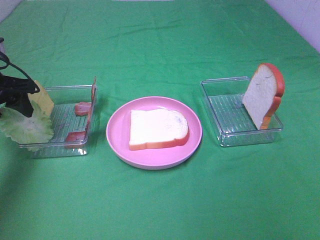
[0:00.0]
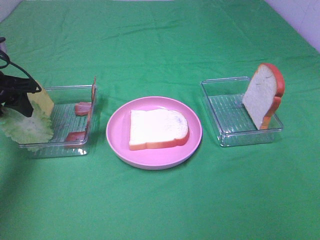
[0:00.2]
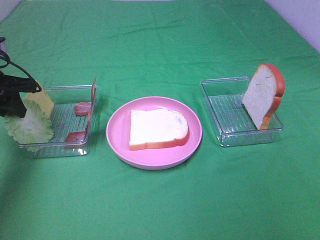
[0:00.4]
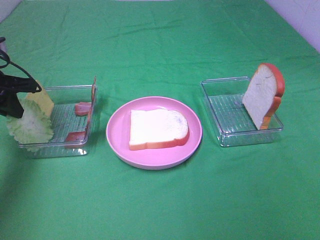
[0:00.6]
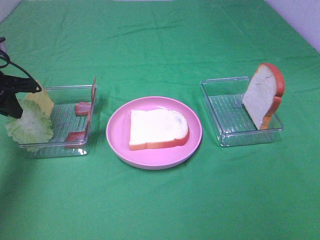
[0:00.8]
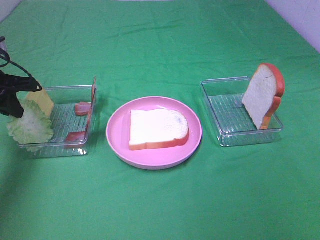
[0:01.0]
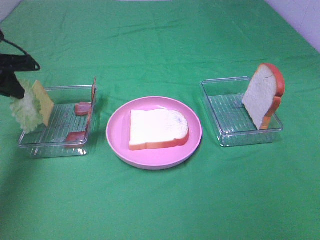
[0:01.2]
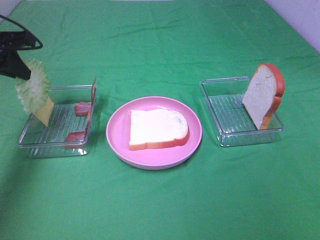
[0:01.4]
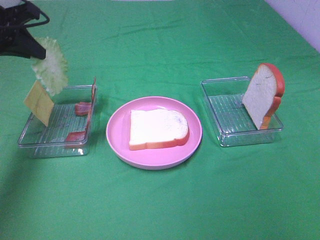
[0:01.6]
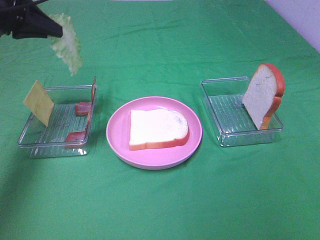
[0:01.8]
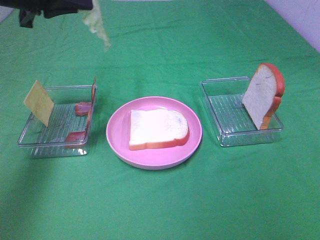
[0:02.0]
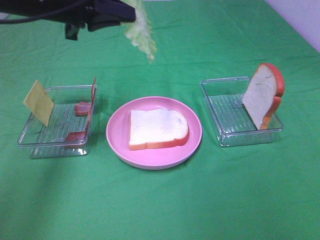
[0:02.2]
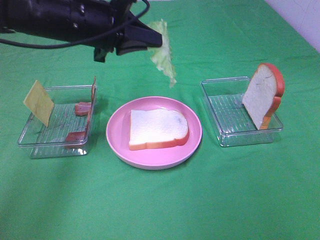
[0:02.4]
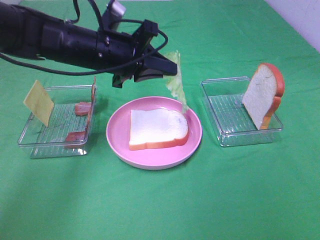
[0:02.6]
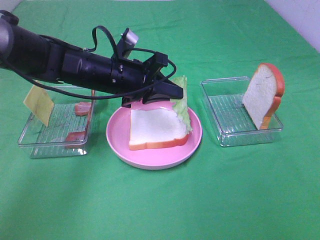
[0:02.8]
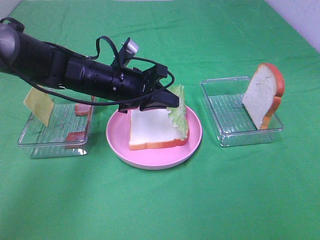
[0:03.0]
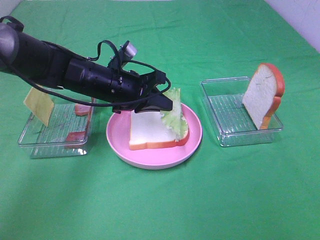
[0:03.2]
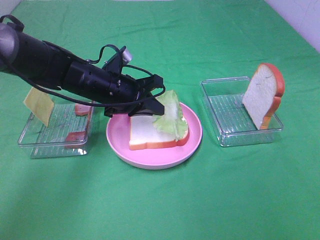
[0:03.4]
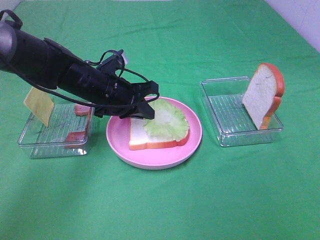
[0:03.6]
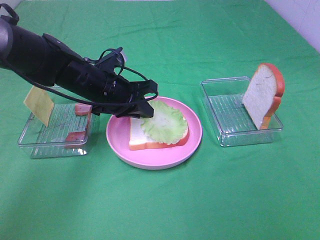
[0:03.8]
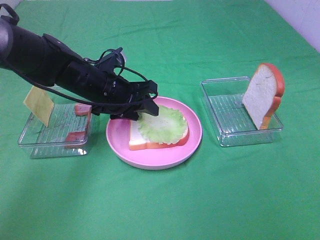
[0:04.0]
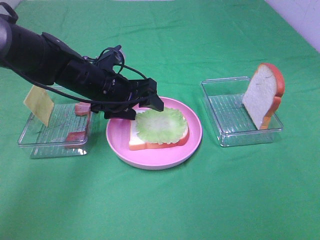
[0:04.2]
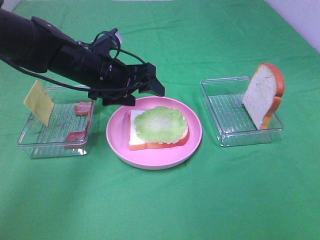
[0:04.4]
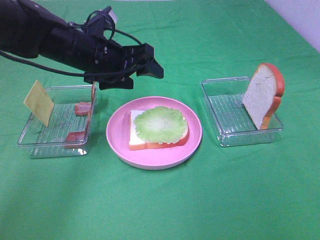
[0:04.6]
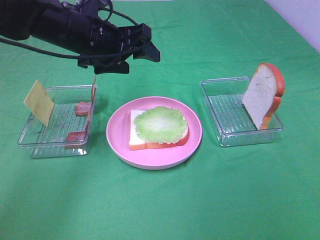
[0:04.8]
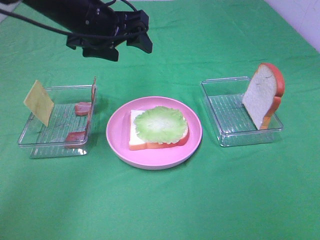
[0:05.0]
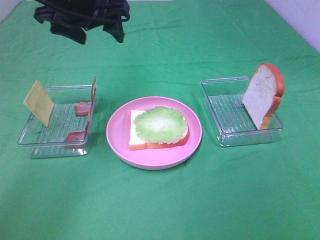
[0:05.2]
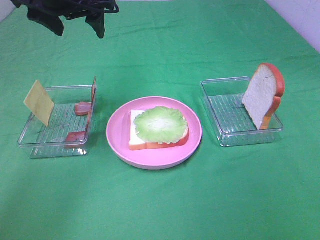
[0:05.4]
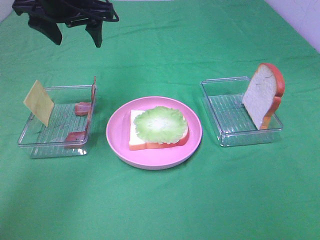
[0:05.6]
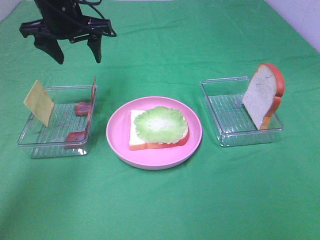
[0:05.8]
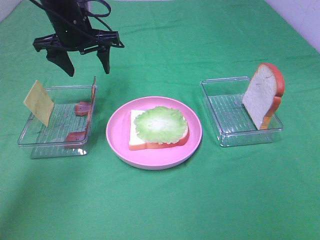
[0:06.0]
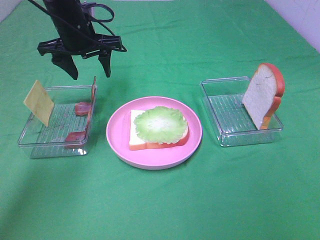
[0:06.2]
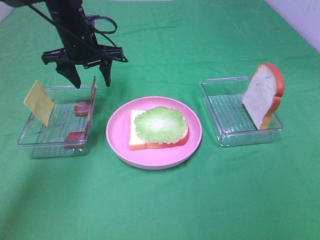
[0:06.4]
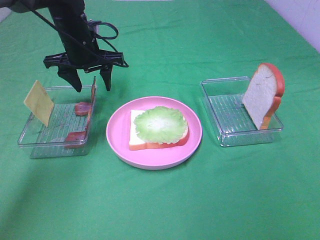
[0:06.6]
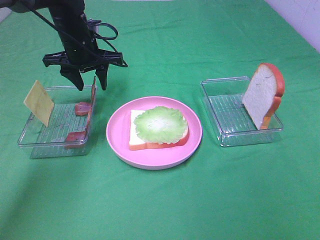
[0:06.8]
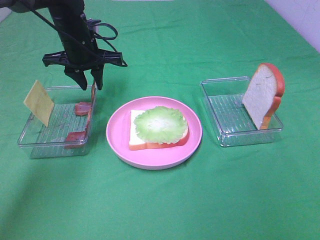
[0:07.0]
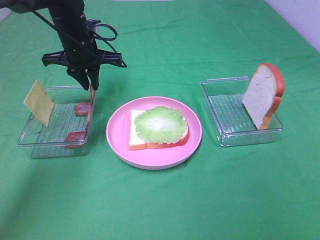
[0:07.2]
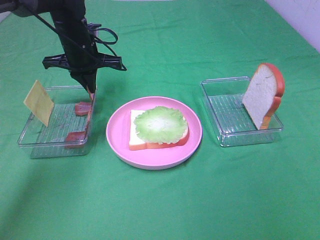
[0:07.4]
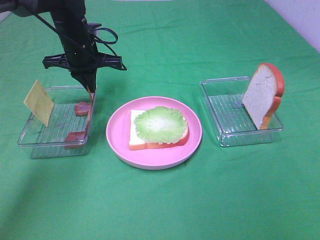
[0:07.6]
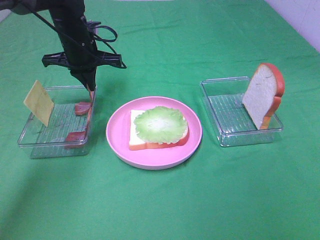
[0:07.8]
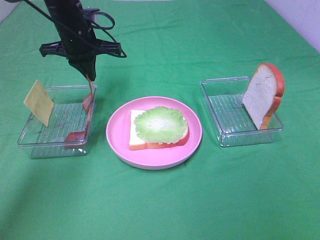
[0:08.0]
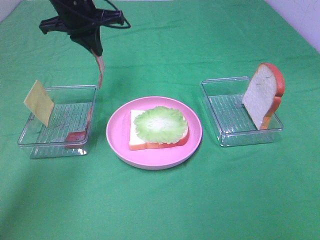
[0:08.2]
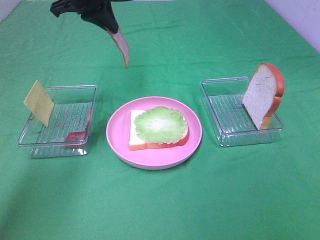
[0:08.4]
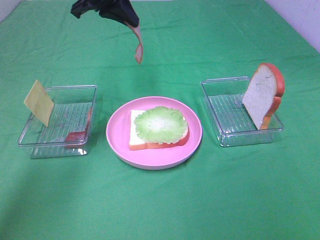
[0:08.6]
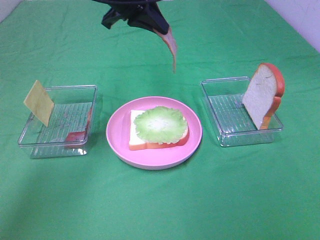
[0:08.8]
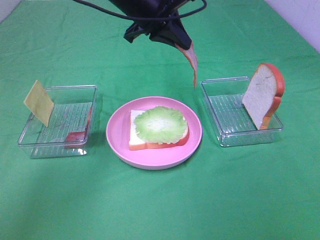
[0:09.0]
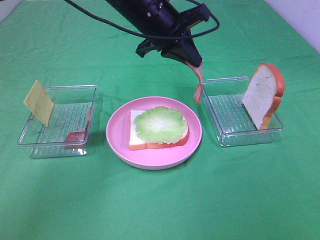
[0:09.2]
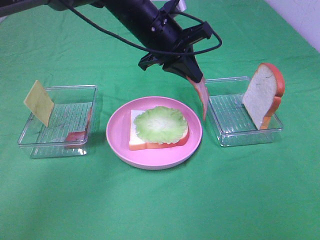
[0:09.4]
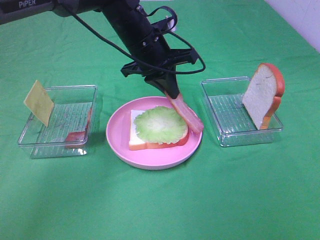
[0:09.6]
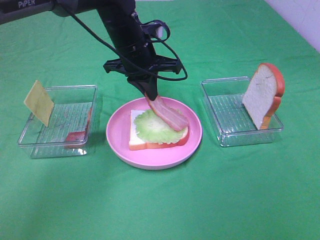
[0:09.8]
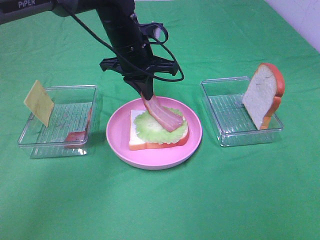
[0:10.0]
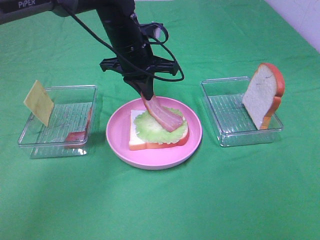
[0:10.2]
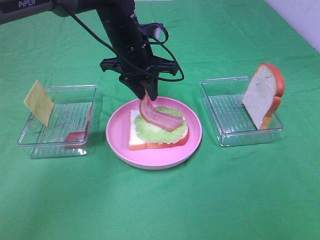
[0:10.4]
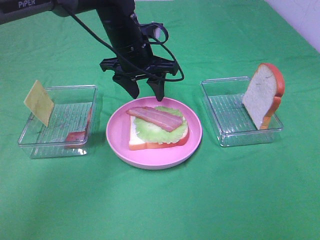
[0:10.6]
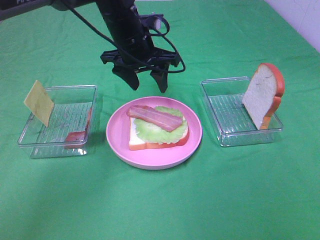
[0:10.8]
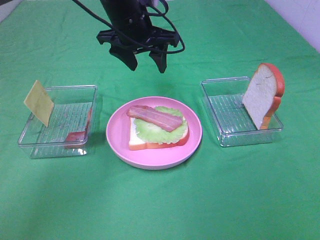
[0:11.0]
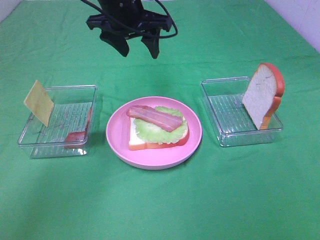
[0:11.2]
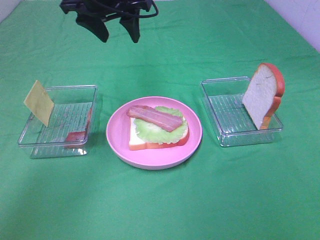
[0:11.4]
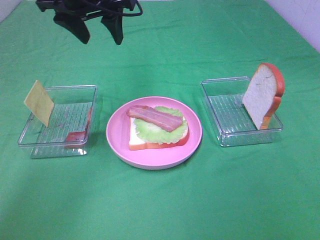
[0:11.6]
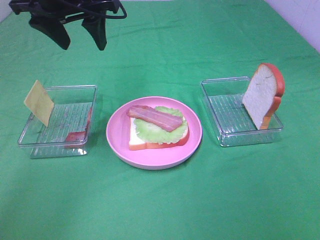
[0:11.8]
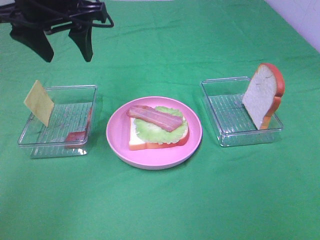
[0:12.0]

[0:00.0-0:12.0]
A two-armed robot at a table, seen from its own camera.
Task of the whole recording: Make sandwiches.
Step, 0:01.0 to 0:04.2: Left hand:place the lettuce slice on the bread slice.
Step, 0:04.4 to 0:07.6: Left hand:grab the bacon.
Step, 0:07.8 to 0:10.6: Left hand:place bacon on lettuce slice.
0:00.0 to 0:01.6: The left gripper moves upward, roughly 10 cm, and closes.
0:01.6 to 0:03.0: The left gripper shifts about 25 cm to the right and downward.
0:03.0 to 0:04.4: The left gripper opens up.
0:04.4 to 0:06.0: The left gripper goes roughly 10 cm forward and upward.
0:06.0 to 0:07.6: The left gripper moves downward, about 5 cm, and closes.
0:07.6 to 0:09.0: The left gripper heads to the right and upward, covering about 15 cm.
0:09.0 to 0:10.4: The left gripper heads downward, covering some 5 cm, and opens.
0:10.4 to 0:12.0: The left gripper heads upward, to the left and backward, covering about 20 cm, and opens.

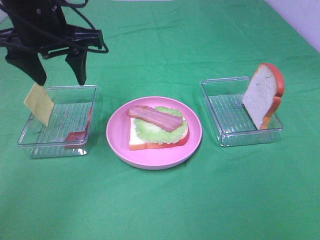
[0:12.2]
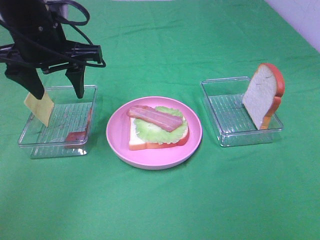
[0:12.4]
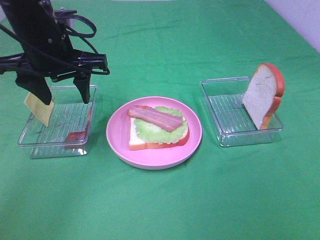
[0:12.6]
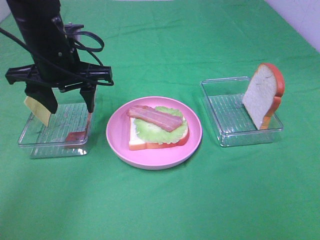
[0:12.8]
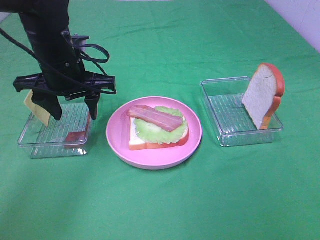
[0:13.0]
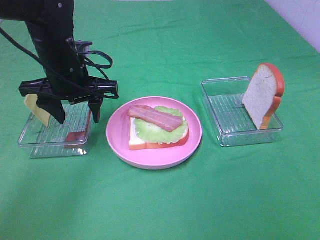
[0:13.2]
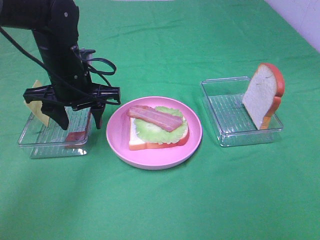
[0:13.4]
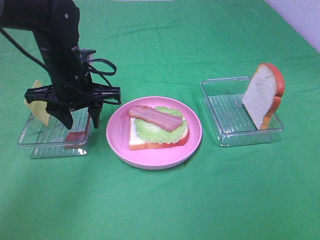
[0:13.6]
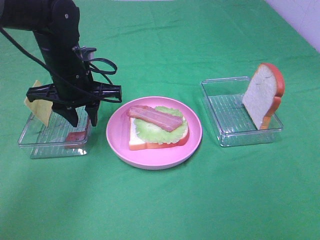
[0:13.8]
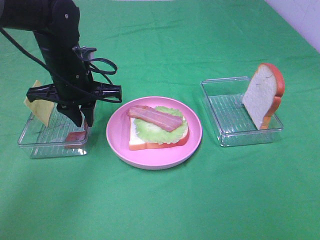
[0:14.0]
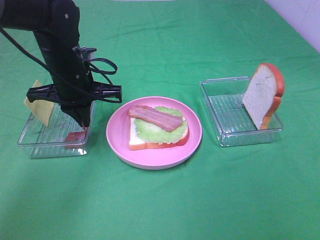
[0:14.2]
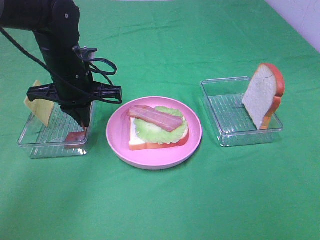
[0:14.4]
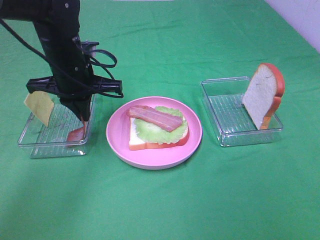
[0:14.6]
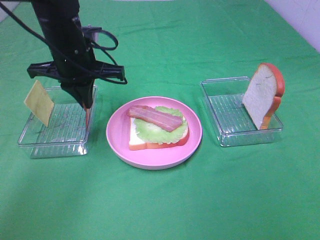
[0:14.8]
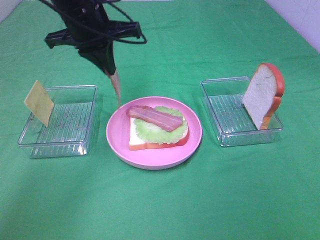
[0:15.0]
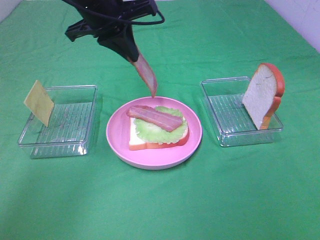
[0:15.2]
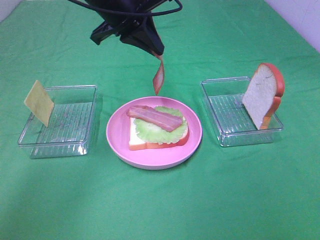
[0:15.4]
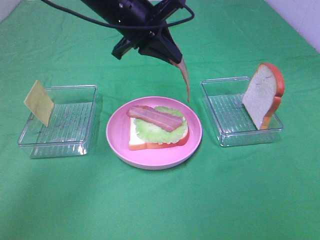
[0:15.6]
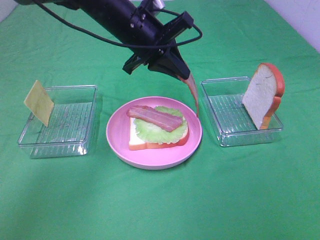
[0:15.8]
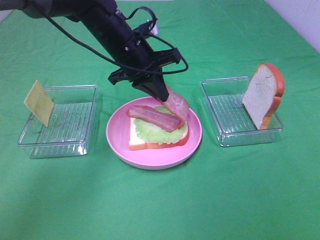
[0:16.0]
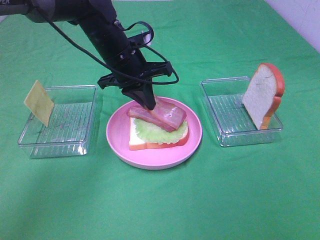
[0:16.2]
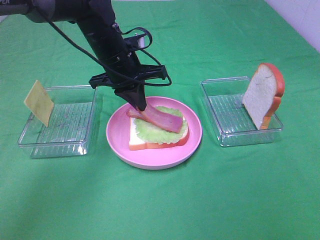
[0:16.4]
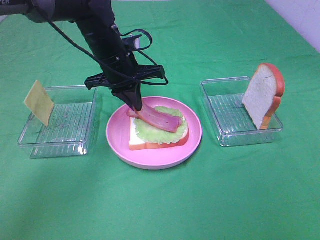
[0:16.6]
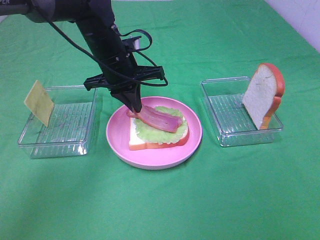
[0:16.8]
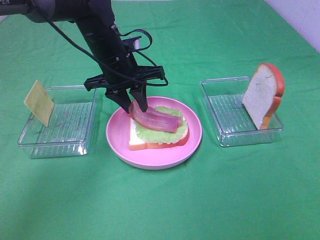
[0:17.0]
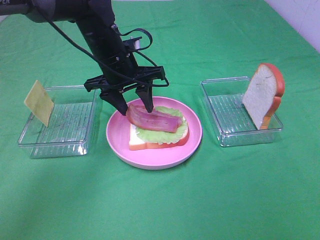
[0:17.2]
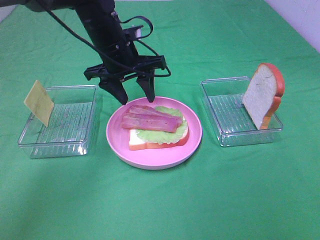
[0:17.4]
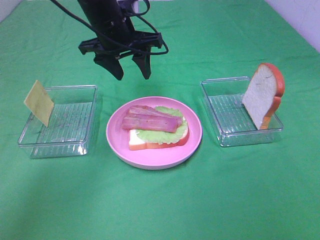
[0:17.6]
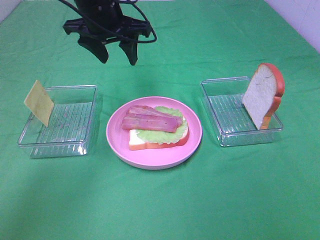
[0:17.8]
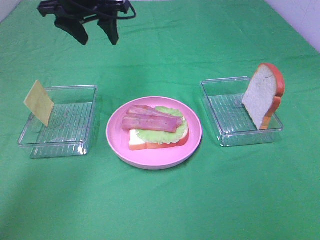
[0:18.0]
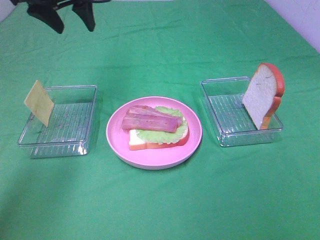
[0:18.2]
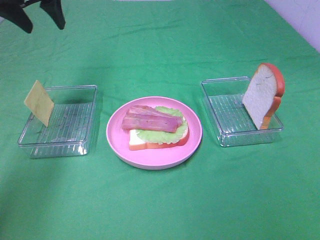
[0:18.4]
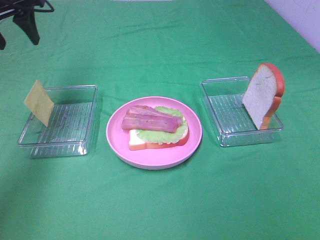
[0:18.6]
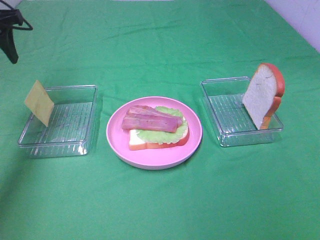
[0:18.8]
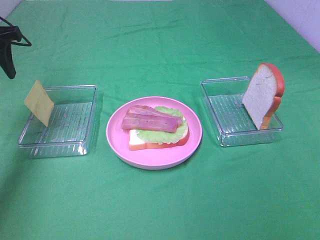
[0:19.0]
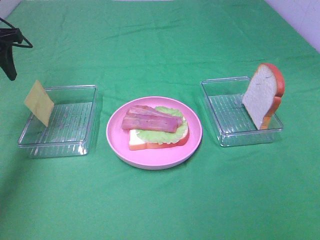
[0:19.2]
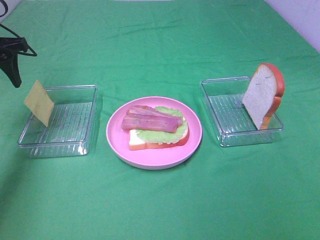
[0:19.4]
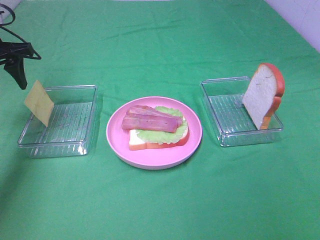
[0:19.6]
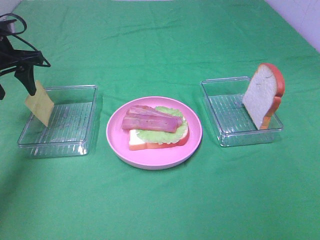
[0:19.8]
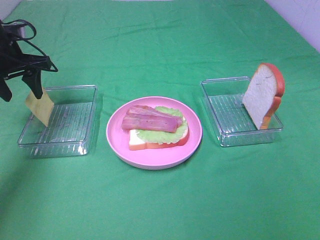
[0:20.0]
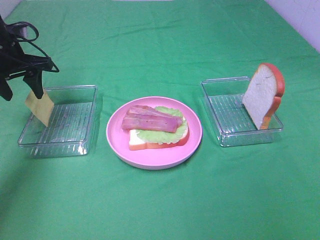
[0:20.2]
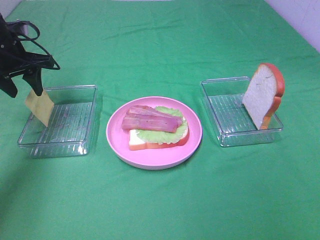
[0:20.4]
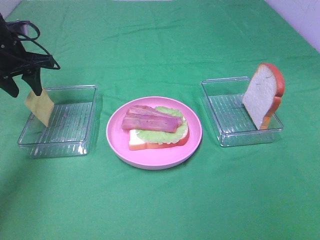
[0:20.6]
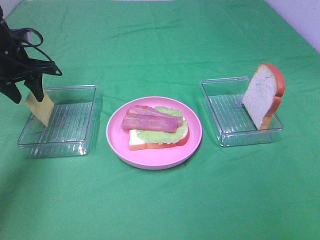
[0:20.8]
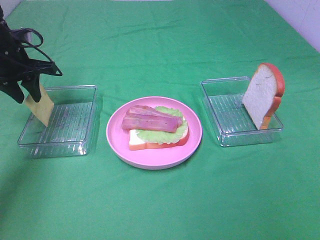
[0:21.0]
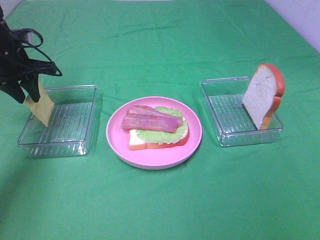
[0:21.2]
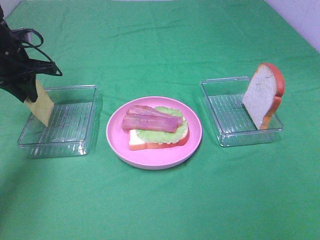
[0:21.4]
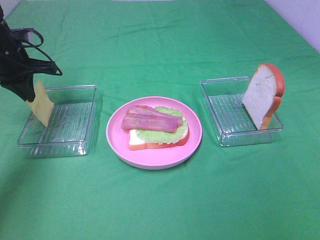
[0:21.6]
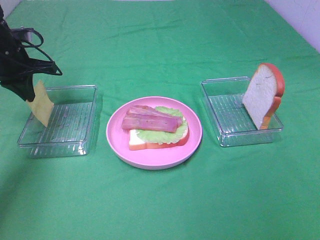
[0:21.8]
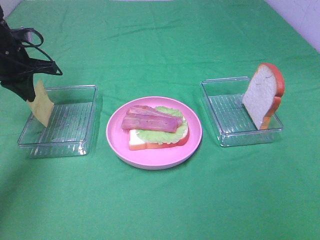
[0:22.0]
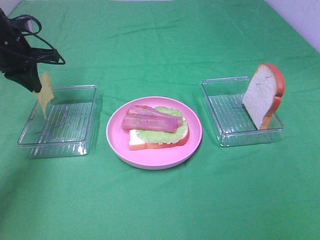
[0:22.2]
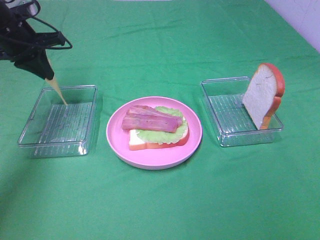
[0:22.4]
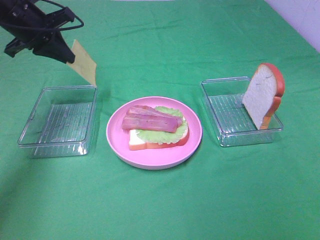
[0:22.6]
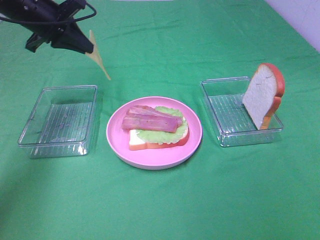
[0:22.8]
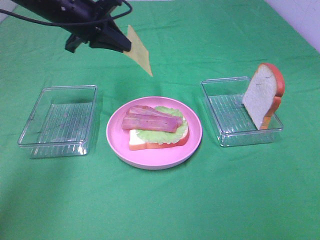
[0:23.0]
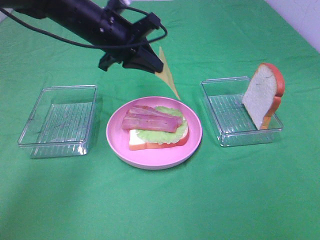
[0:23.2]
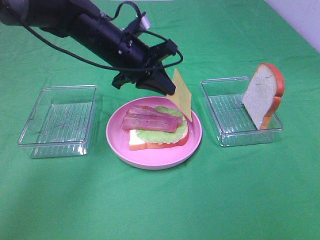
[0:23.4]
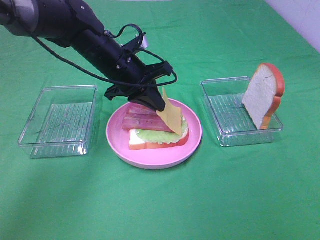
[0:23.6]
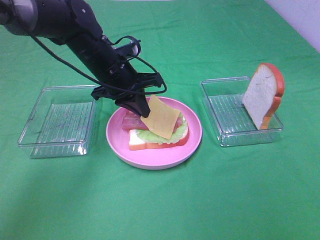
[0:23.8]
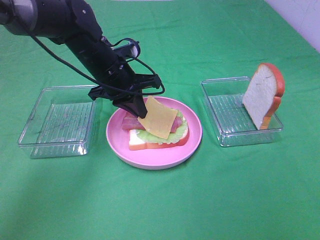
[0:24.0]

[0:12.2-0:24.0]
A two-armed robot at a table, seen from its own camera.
Task of the whole recording: Make sandwiches.
Step, 0:12.2 to 0:14.4: Left hand:grab the bacon.
Step, 0:14.6 to 0:17.4: Left hand:place bacon on bacon.
Step, 0:17.6 to 0:22.0: Left hand:grab the cheese slice.
0:12.2 to 0:13.6: The left gripper goes some 10 cm downward.
0:13.6 to 0:15.2: The left gripper shifts about 15 cm upward and to the right, and closes up.
0:15.2 to 0:16.6: The left gripper shifts approximately 10 cm downward.
0:16.6 to 0:18.2: The left gripper travels upward and to the left by some 20 cm, and opens.
0:18.2 to 0:19.6: The left gripper is displaced to the left and downward by approximately 15 cm.
0:19.6 to 0:21.0: The grippers move only a little.
0:21.0 to 0:22.6: The left gripper is displaced upward by some 5 cm, and closes.
0:22.6 to 0:24.0: The left gripper travels to the right and downward by approximately 15 cm.
